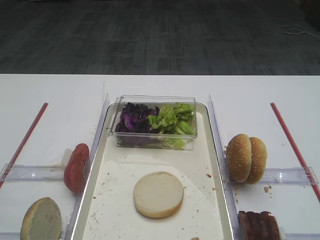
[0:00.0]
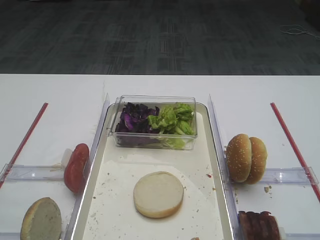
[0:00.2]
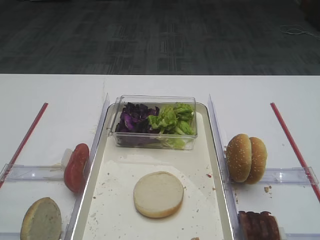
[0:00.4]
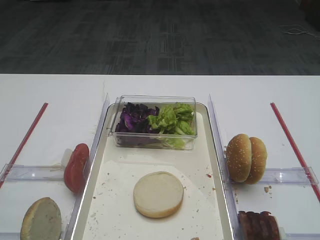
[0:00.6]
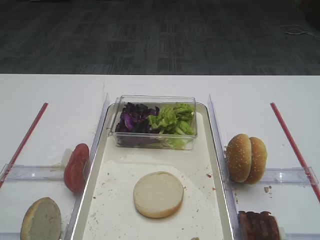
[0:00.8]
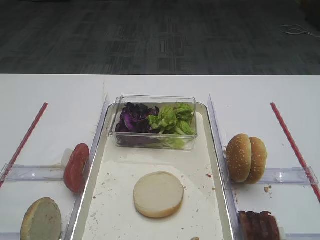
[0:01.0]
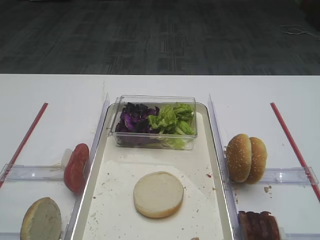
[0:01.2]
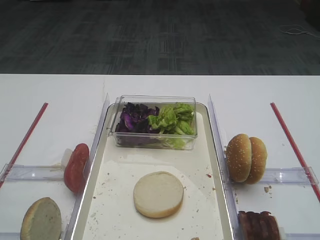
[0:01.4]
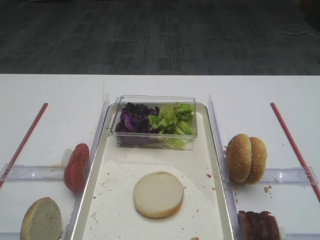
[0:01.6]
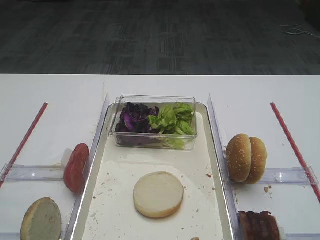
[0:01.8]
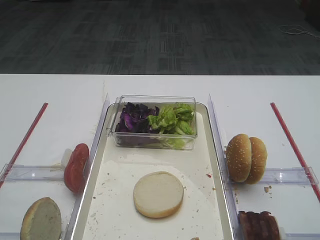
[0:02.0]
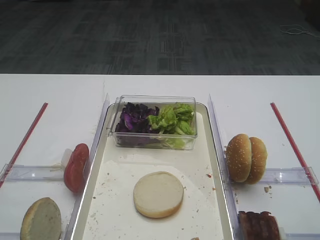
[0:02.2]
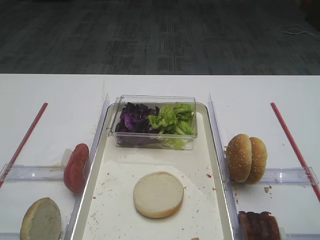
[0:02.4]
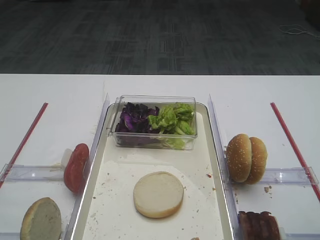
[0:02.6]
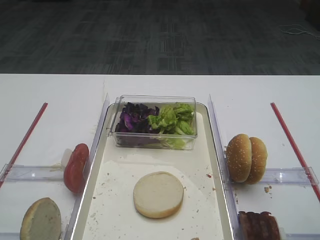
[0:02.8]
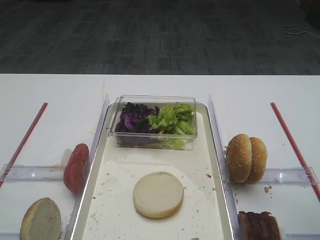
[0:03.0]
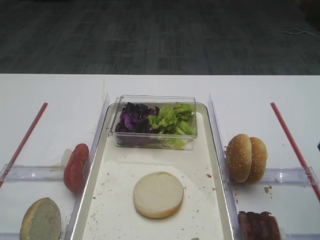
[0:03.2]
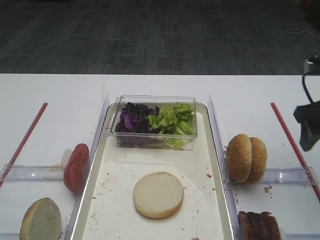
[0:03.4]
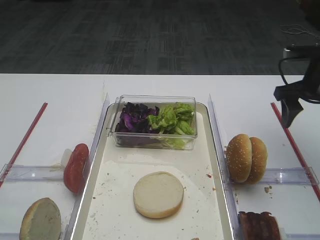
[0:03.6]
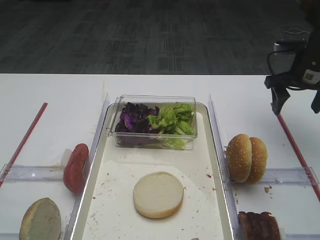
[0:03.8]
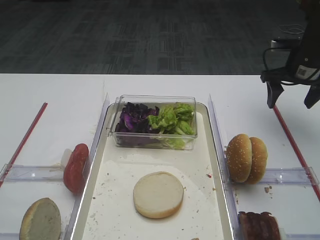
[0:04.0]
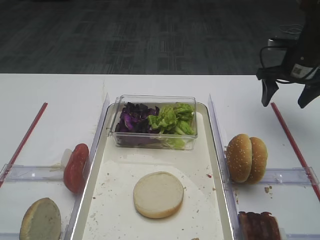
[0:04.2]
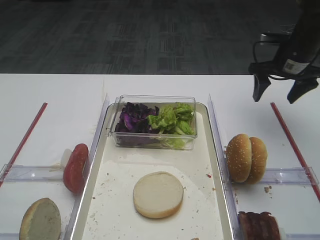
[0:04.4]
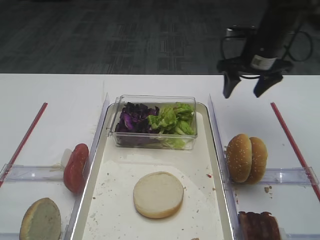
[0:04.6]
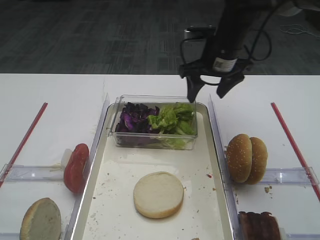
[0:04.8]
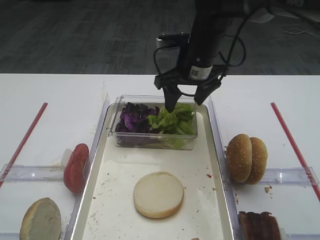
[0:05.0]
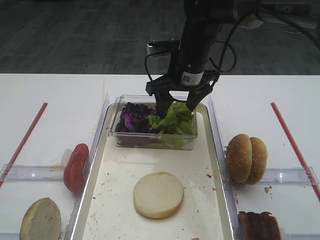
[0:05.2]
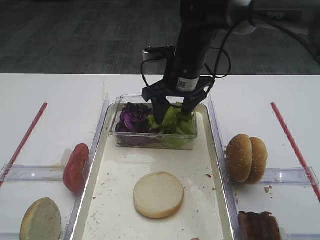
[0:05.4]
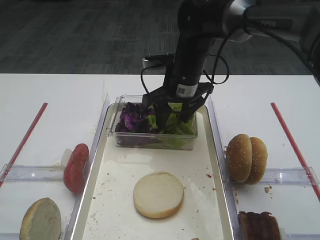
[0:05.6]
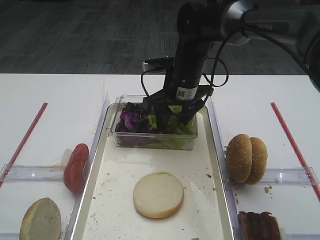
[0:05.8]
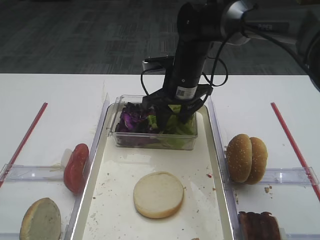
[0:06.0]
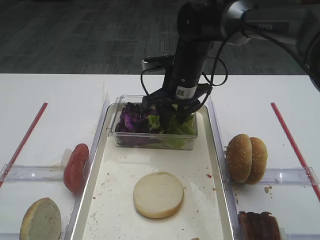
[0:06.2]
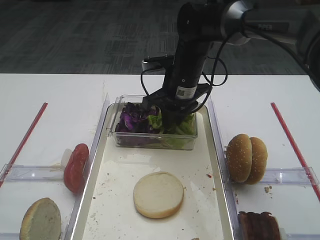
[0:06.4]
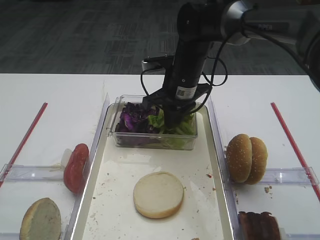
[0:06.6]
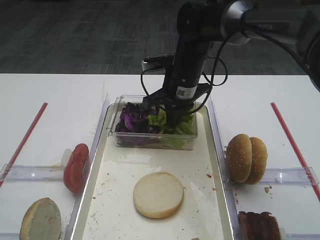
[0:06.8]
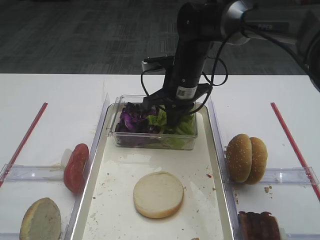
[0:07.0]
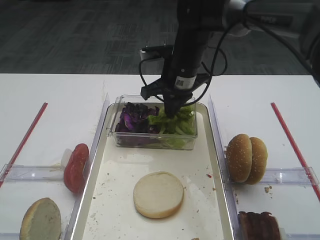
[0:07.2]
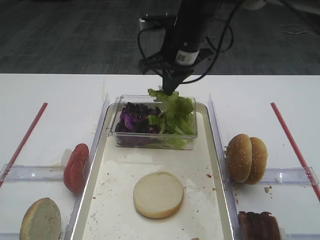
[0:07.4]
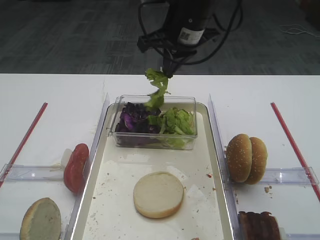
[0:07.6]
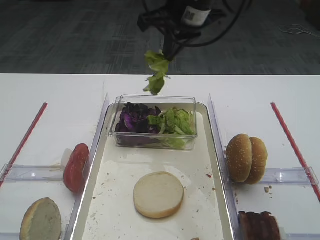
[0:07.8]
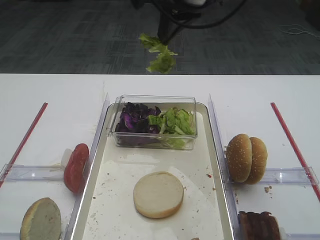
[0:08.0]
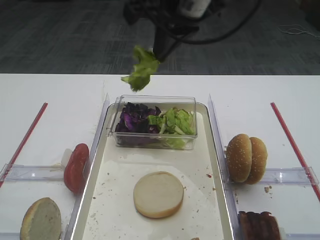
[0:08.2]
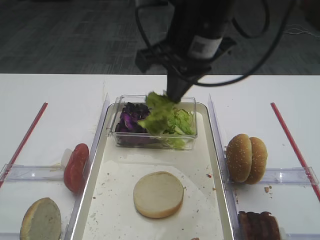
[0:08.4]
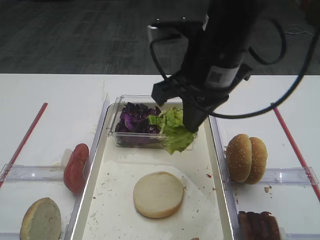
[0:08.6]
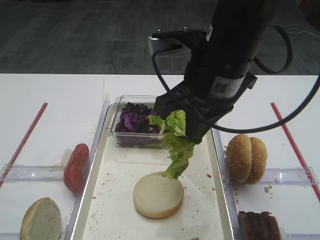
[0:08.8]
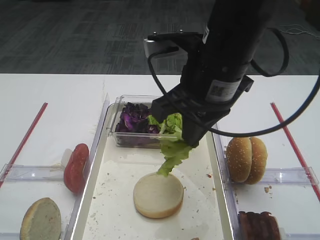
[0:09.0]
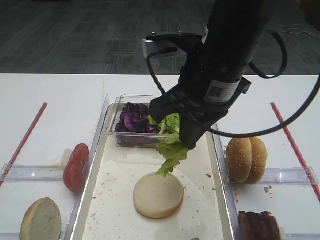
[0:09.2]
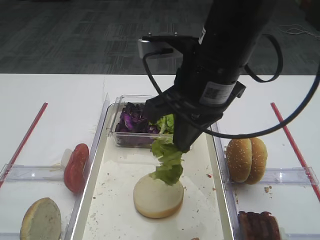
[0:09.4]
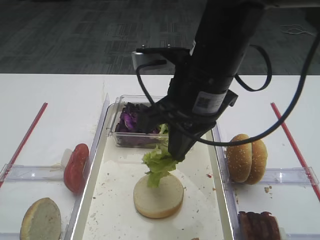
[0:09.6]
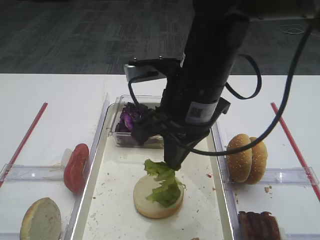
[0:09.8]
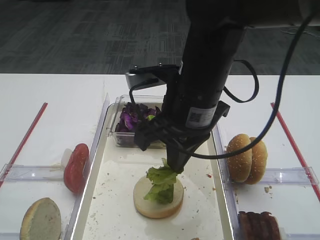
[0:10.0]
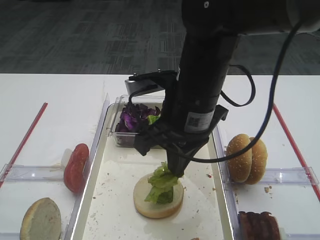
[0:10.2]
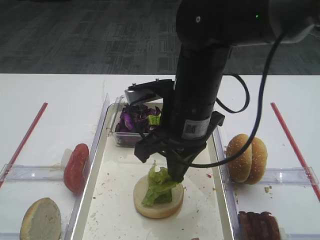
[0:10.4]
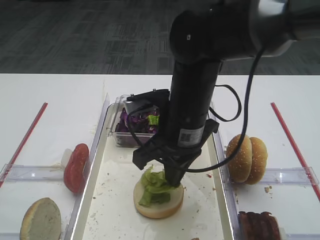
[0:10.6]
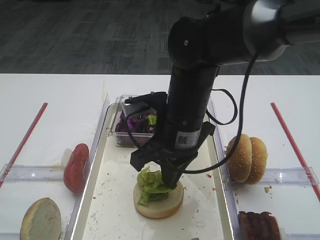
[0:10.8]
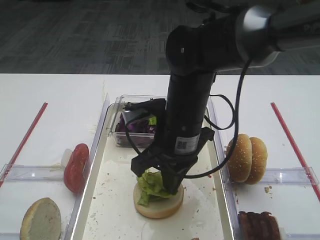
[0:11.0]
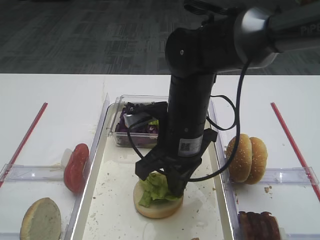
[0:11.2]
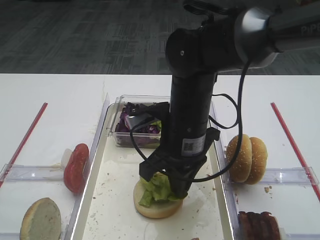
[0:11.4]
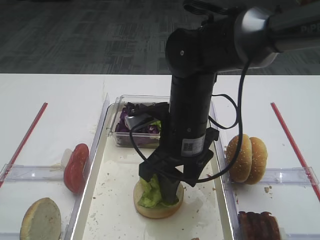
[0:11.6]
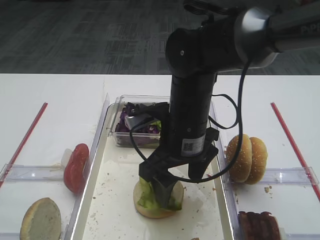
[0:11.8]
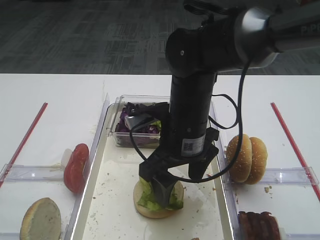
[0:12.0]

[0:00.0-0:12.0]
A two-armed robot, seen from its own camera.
Step, 0:00.0 to 0:08.2: Pick up the lettuce leaf with the right gripper.
0:01.6 to 0:03.0: The right gripper goes some 15 cm forward.
0:03.0 to 0:04.4: The right gripper shifts about 30 cm forward.
0:04.4 to 0:06.0: The right gripper shifts some 25 cm to the left.
0:06.0 to 0:07.6: The right gripper shifts some 10 cm upward, and closes its fingers.
0:07.6 to 0:09.0: The right gripper travels backward by approximately 15 cm.
0:09.0 to 0:10.4: The right gripper moves downward, roughly 5 cm.
0:10.4 to 0:12.0: The right gripper opens.

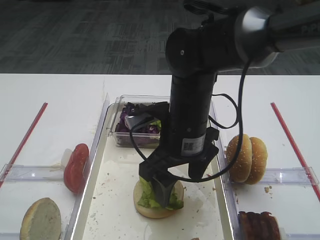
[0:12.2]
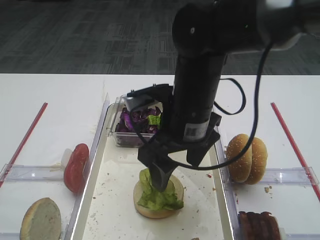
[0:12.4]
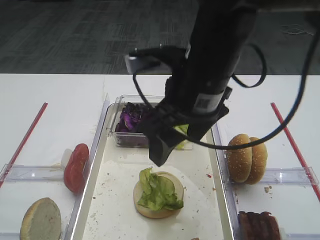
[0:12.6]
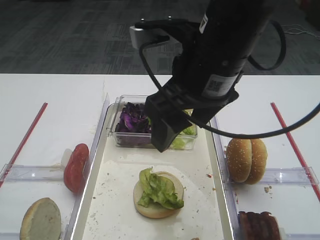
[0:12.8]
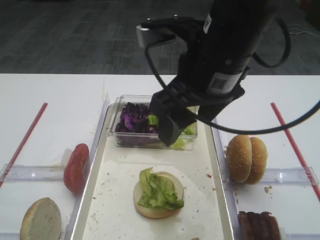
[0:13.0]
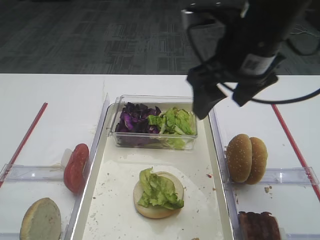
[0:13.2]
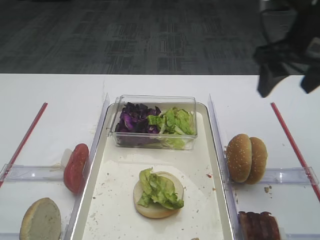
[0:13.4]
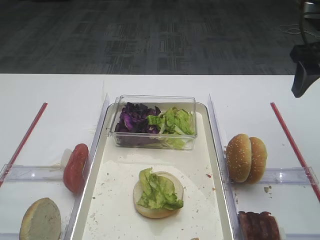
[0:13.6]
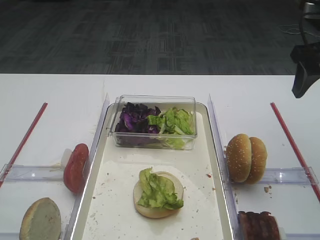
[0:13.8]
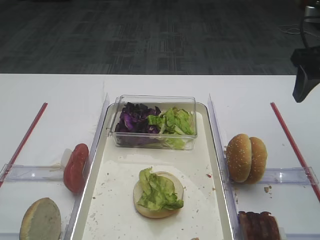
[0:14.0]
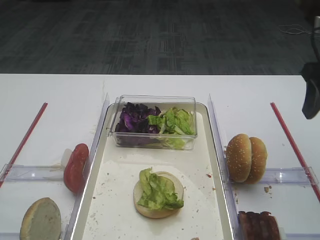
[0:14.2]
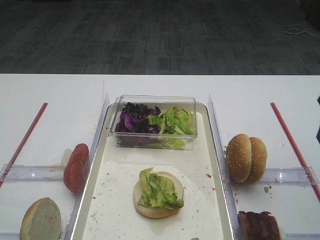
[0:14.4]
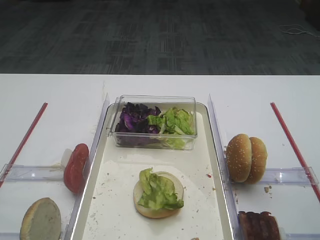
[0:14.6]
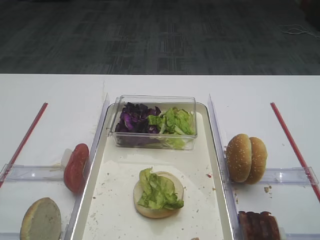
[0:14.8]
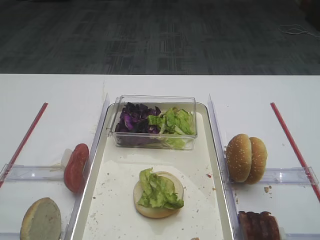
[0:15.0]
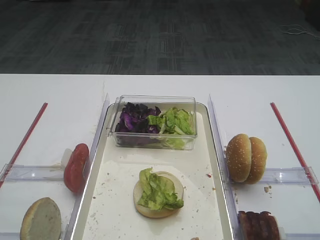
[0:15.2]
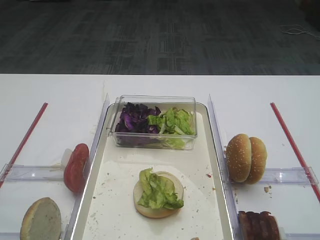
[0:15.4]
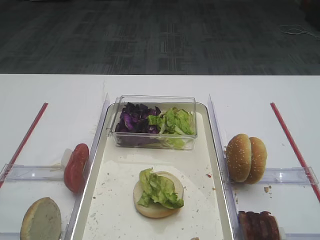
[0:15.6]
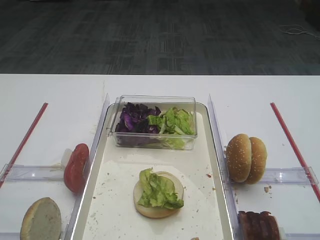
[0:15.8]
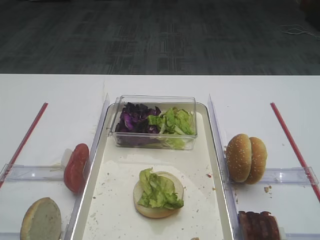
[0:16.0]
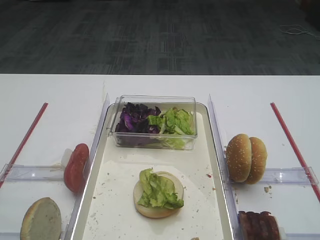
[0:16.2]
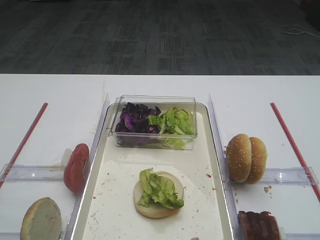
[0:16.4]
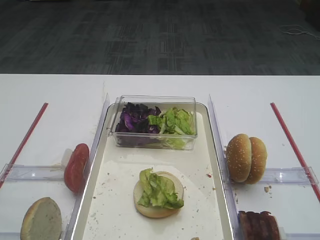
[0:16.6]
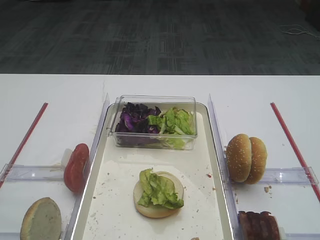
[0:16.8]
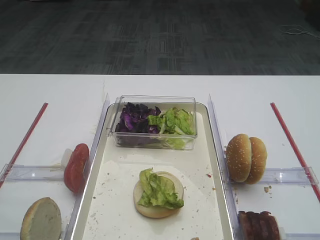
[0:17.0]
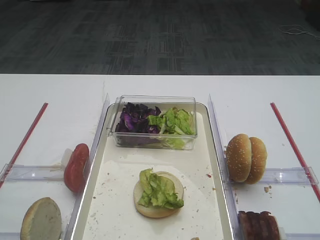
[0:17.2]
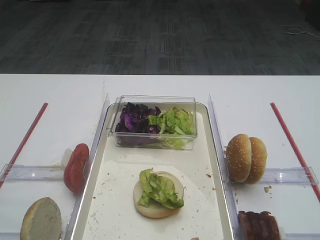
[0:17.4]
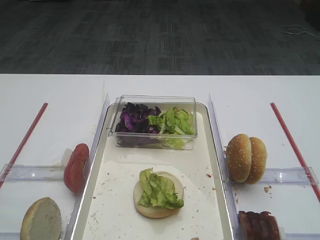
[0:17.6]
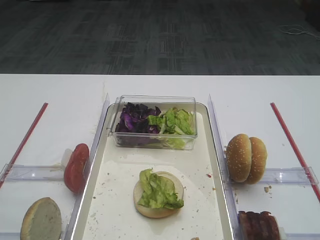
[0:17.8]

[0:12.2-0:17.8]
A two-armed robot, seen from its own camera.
0:12.2 to 0:13.6: The right gripper goes approximately 25 cm to the right and upward.
0:13.6 to 0:15.0: The right gripper travels backward by approximately 20 cm.
0:16.4 to 0:17.8: Both grippers stay put.
